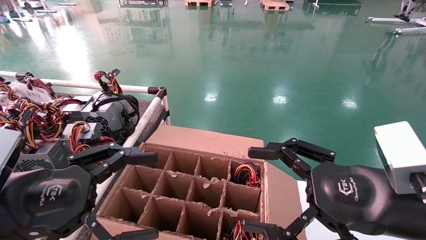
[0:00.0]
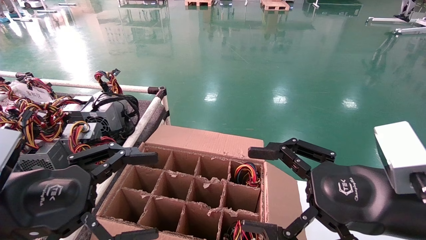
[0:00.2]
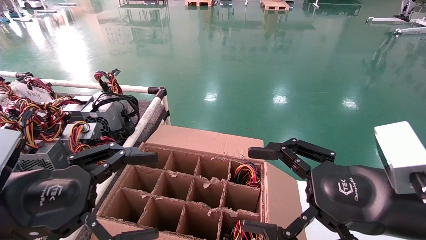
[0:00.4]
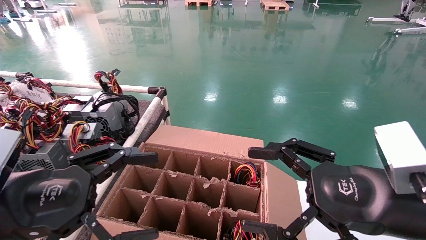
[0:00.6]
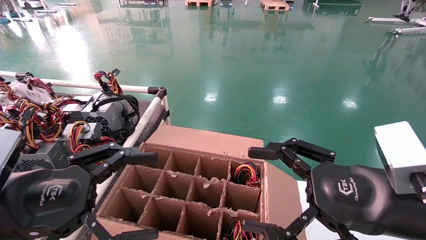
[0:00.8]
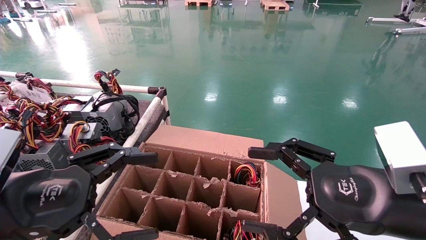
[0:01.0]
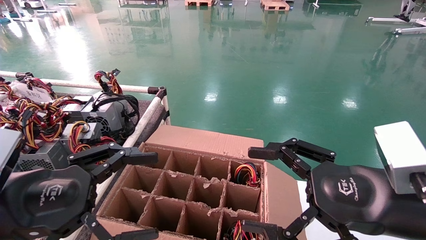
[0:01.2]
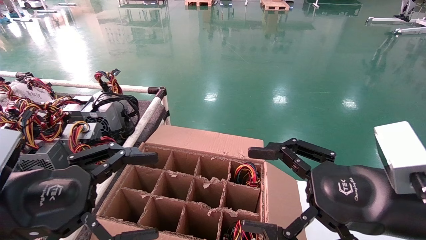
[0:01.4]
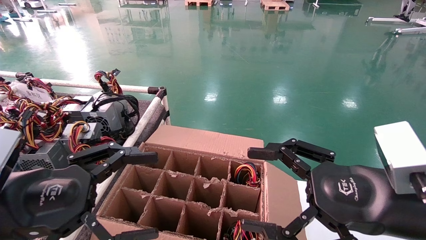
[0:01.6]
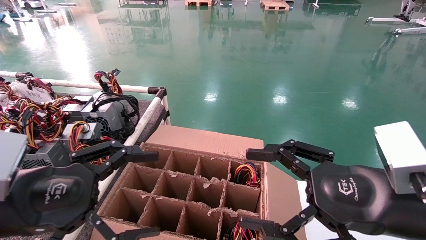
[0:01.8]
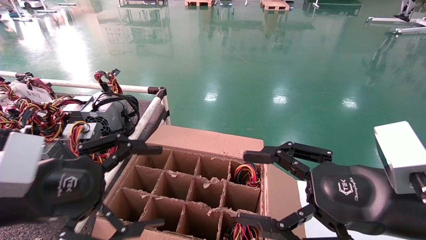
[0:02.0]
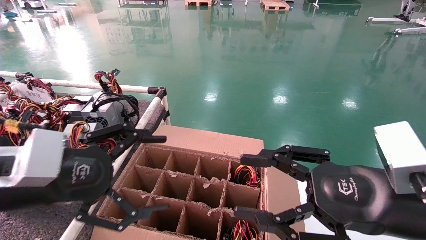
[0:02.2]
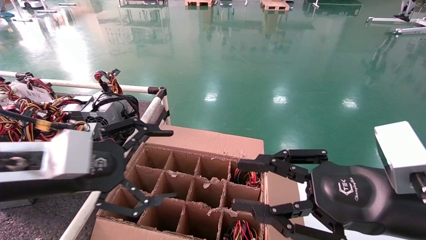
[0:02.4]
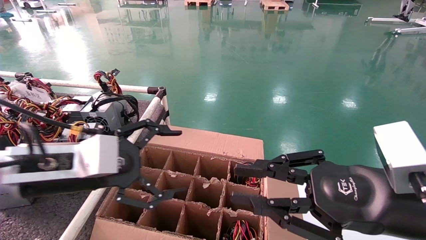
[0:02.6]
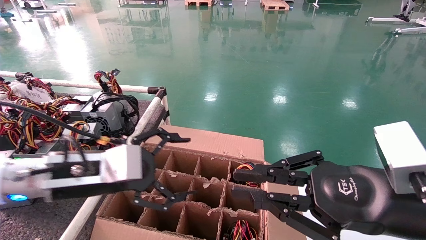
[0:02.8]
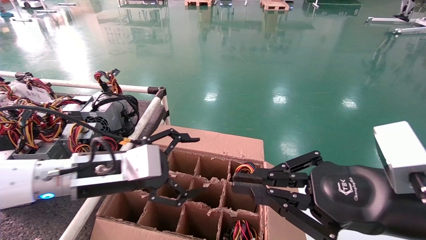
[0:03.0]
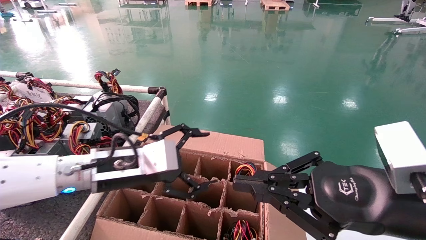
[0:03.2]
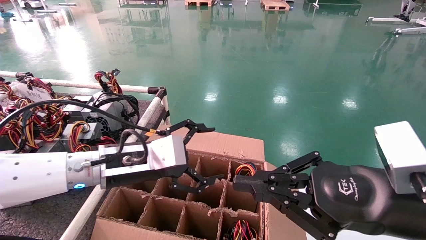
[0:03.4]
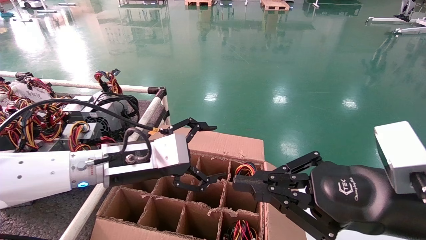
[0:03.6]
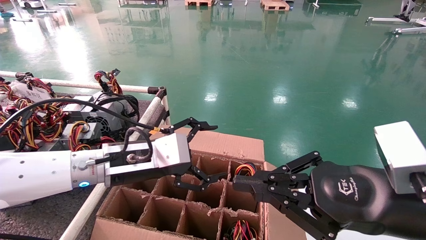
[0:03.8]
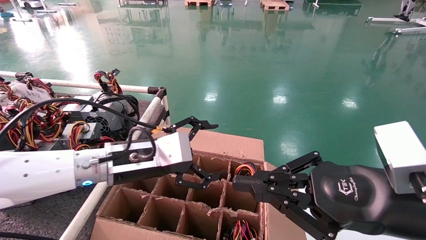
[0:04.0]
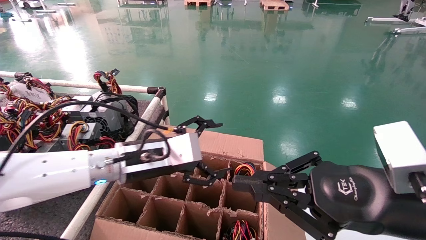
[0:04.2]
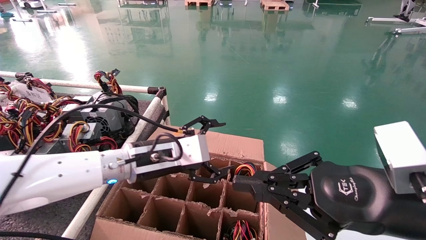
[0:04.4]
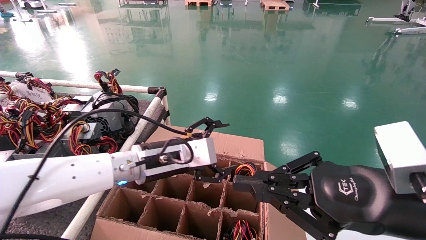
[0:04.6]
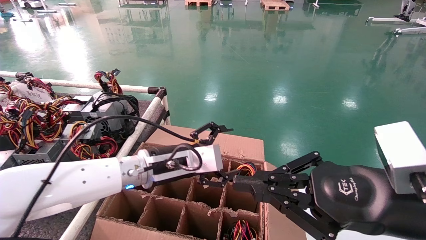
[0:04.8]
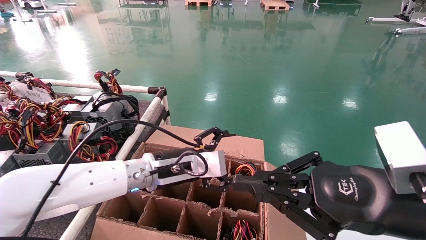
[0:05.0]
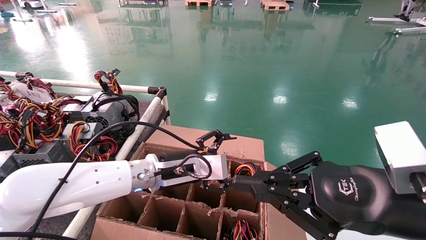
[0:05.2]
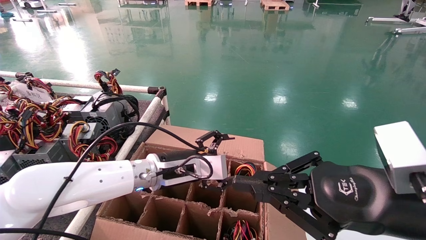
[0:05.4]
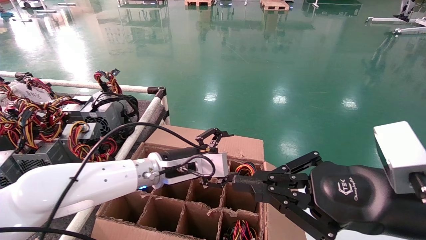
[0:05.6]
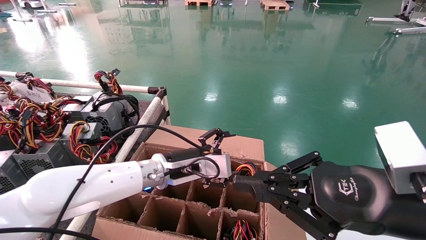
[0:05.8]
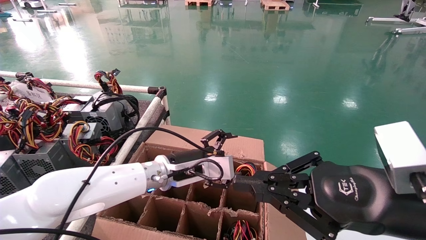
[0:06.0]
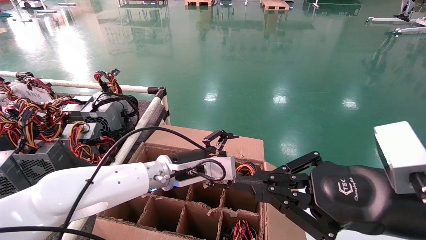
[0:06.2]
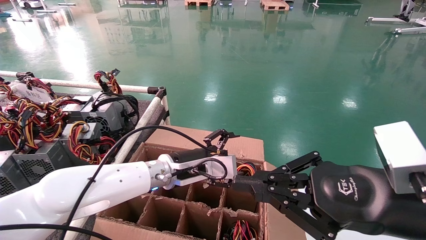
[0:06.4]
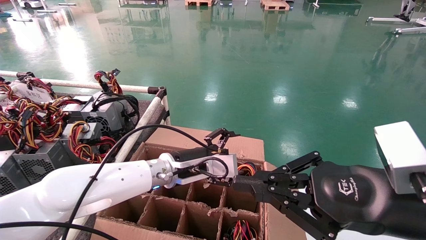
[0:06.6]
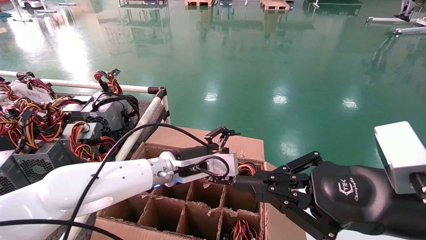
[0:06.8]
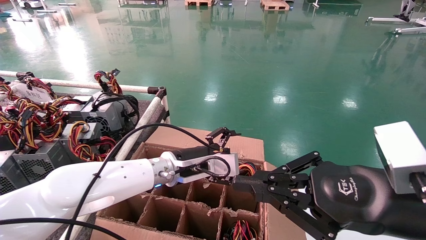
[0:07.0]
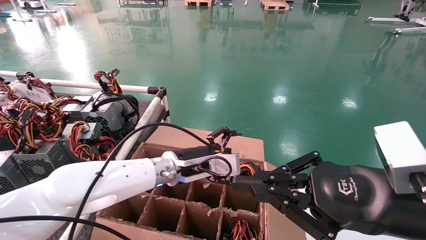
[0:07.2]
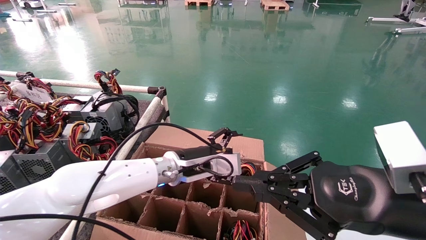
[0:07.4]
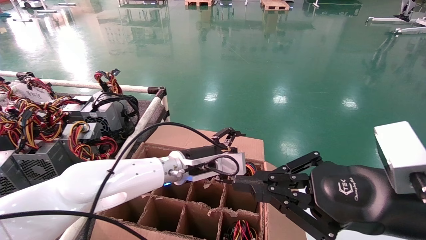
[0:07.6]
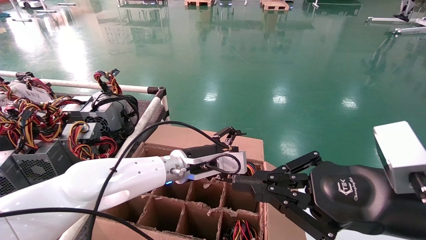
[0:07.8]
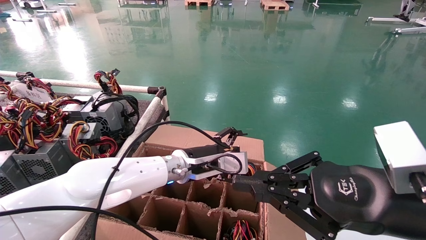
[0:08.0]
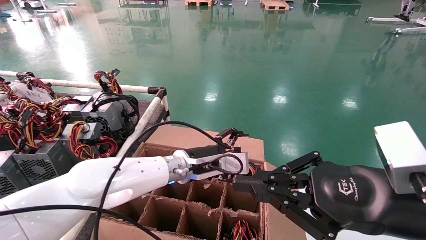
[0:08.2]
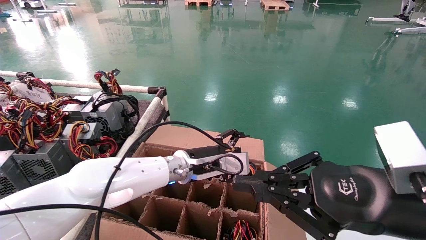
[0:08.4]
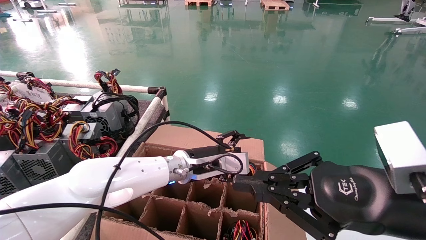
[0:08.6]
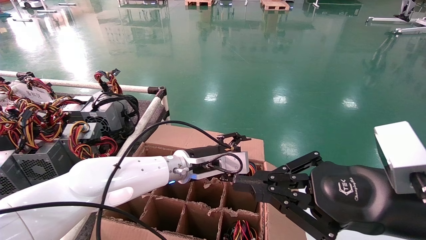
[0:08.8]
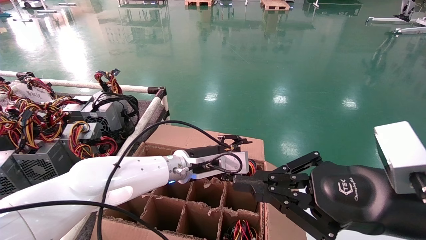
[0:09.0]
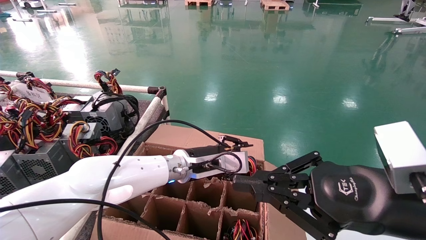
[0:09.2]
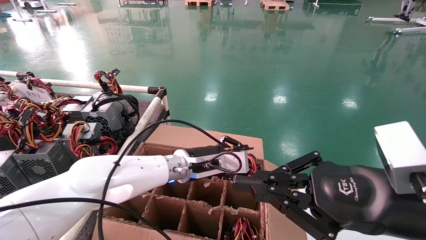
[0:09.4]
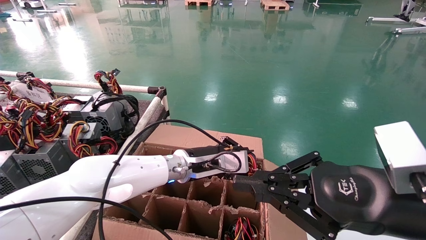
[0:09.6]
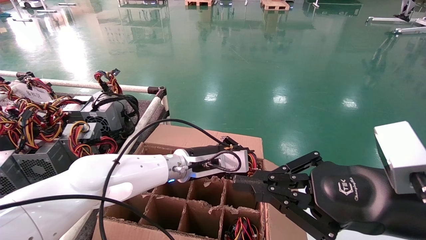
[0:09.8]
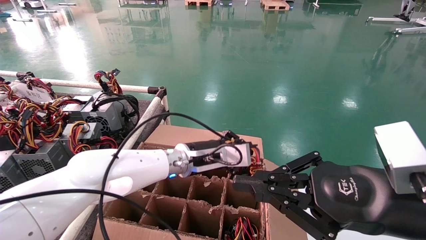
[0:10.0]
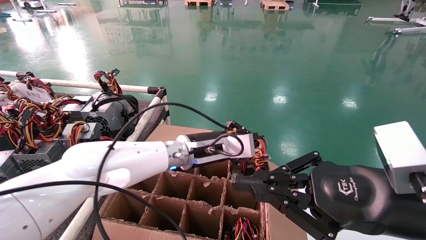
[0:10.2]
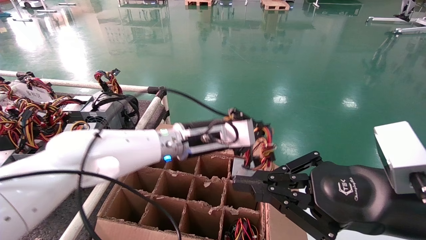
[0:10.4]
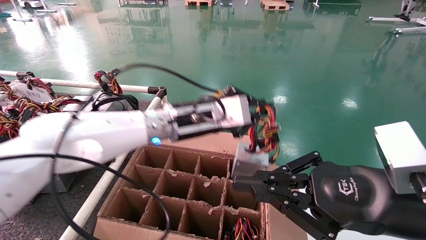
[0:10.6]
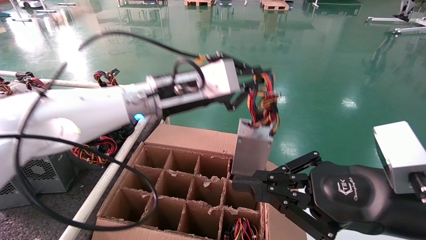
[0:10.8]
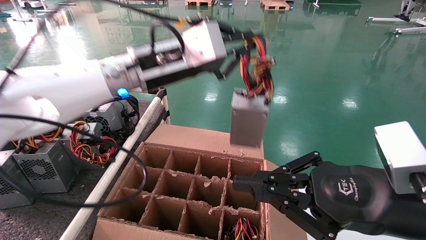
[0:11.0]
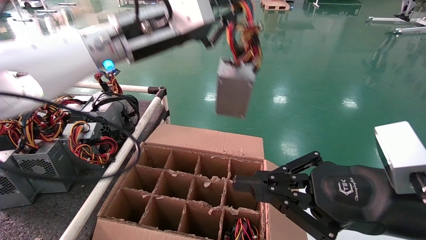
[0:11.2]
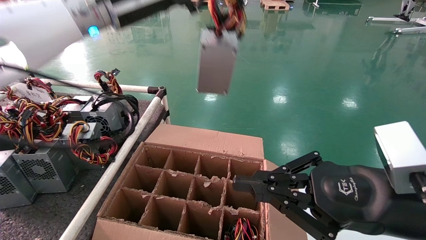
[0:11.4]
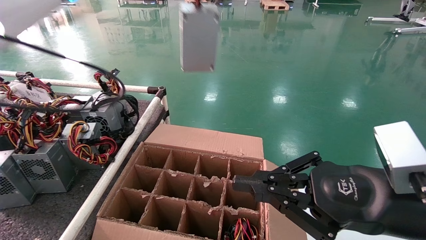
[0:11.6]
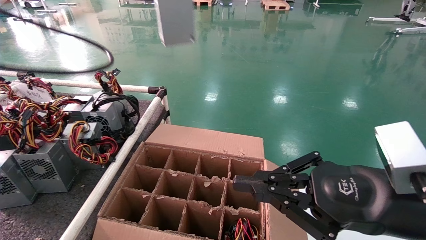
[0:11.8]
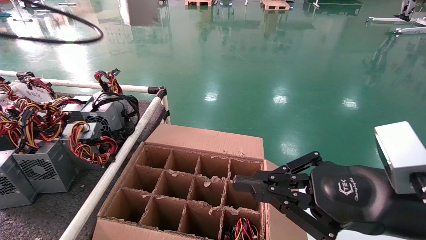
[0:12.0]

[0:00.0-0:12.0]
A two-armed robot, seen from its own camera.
Step, 0:00.0 to 0:09.6: Grasp the battery.
0:00.0 to 0:01.6: Both grippers stay put.
0:01.6 to 0:03.0: The right gripper closes up. The left gripper is displaced forward and to the right by approximately 15 cm.
0:03.0 to 0:04.4: The left gripper shifts approximately 10 cm to the right and forward.
0:04.4 to 0:06.0: The left gripper shifts by approximately 10 cm.
0:06.0 to 0:07.6: The grippers move only a little.
0:07.6 to 0:09.0: Both grippers stay put.
0:09.0 to 0:10.4: The left gripper heads upward, covering about 10 cm, and closes its fingers.
0:10.4 to 0:12.0: The left gripper goes approximately 40 cm upward and to the left.

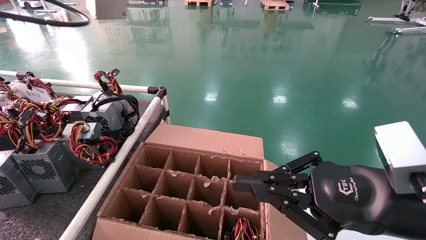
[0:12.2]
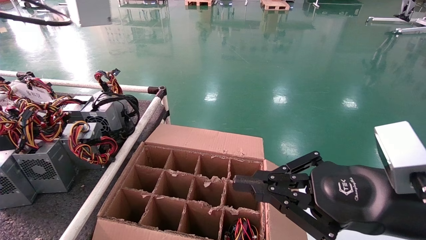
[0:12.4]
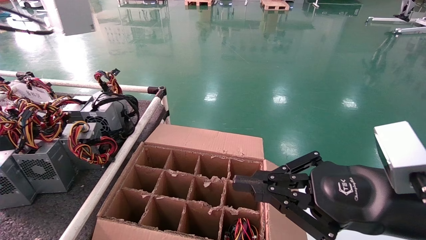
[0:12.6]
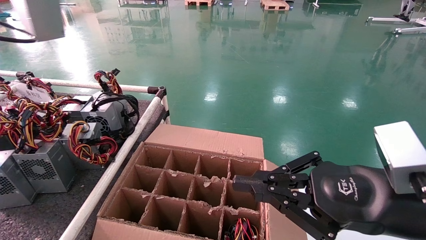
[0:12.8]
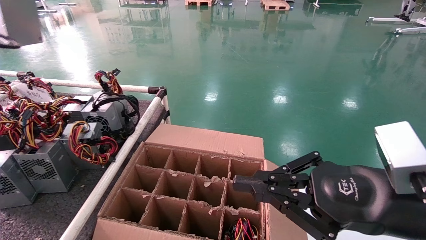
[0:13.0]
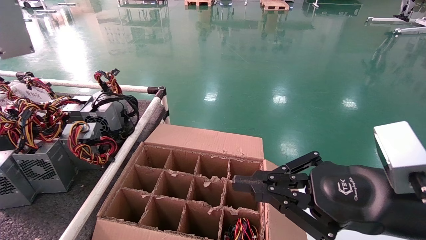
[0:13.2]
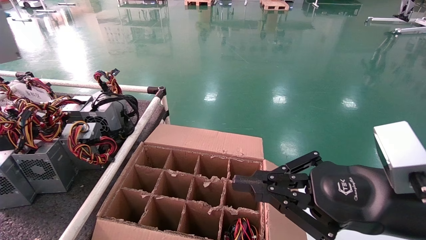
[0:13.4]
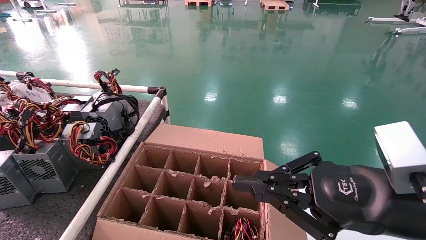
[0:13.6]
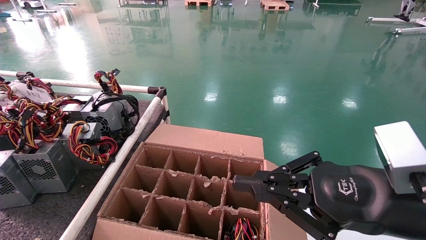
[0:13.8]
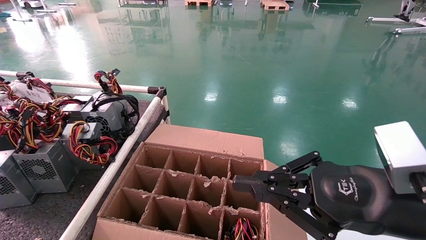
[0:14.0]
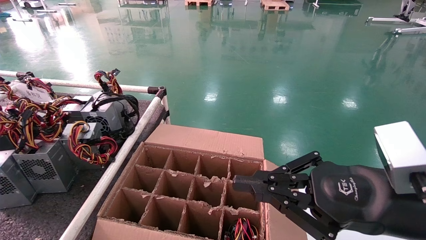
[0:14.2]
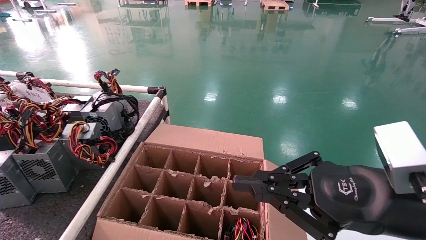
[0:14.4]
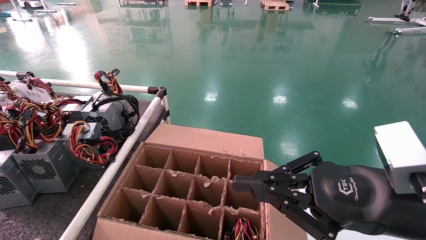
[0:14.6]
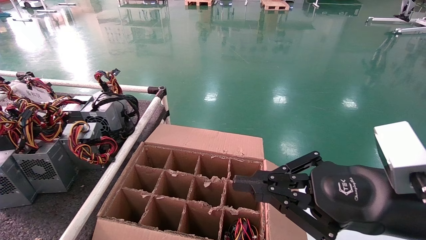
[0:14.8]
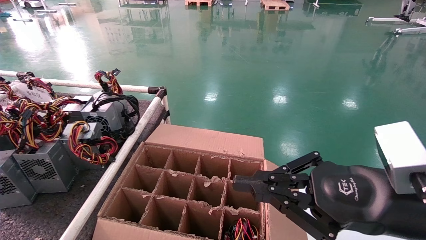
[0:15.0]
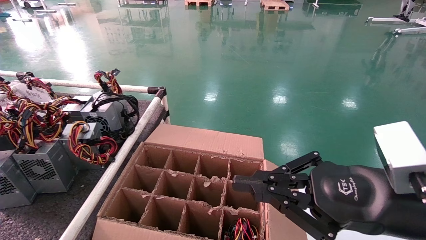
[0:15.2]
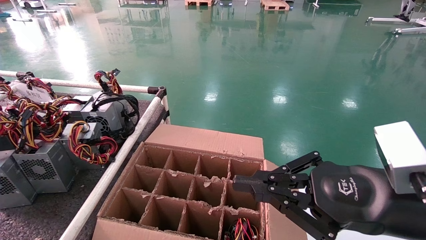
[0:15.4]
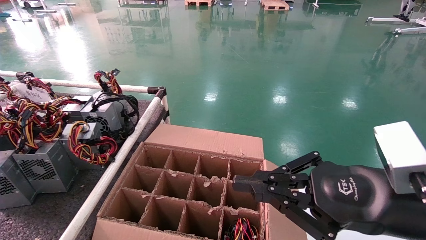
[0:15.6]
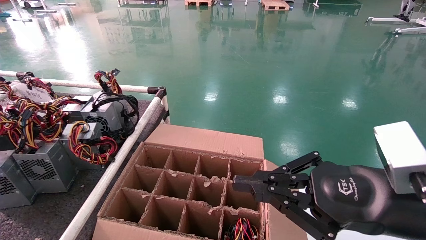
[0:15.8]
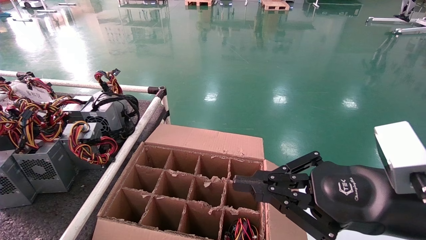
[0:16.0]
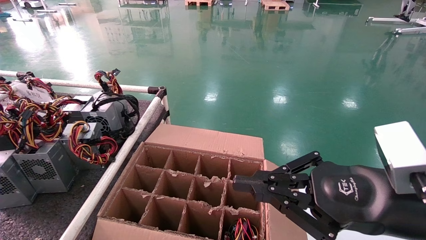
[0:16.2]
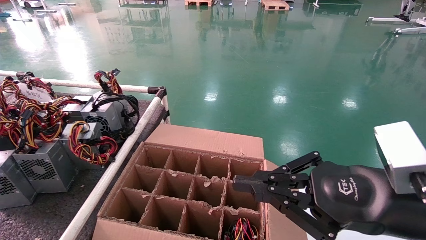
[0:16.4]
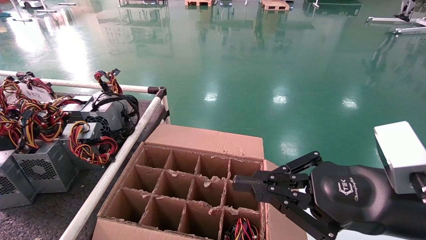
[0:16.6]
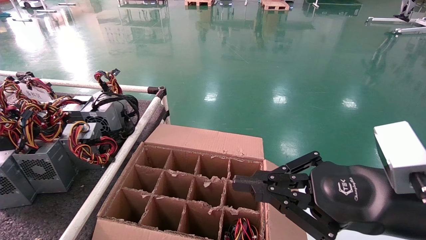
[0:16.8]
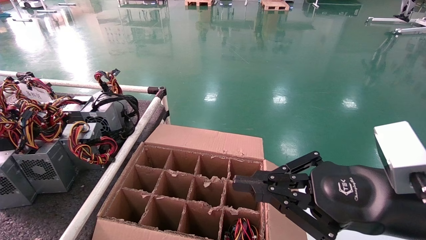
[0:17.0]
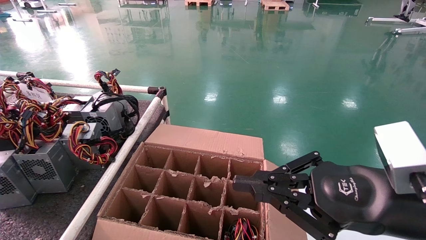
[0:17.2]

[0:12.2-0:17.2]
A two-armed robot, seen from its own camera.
0:12.2 to 0:13.8: The left gripper travels to the left by roughly 25 cm.
0:15.6 to 0:17.2: The left gripper travels downward by approximately 10 cm.
